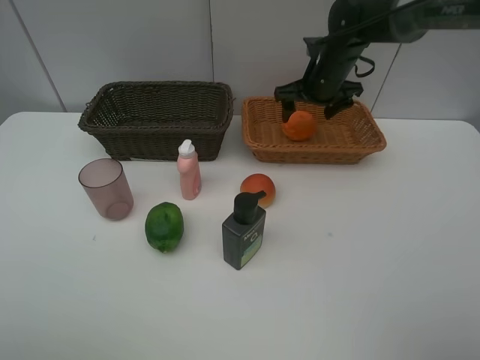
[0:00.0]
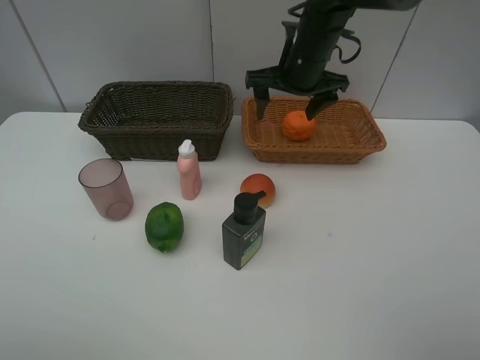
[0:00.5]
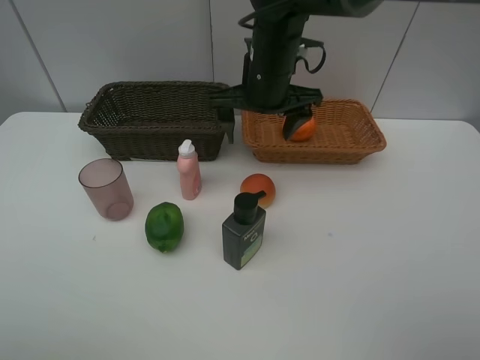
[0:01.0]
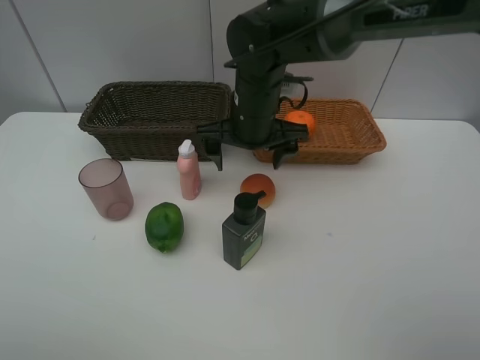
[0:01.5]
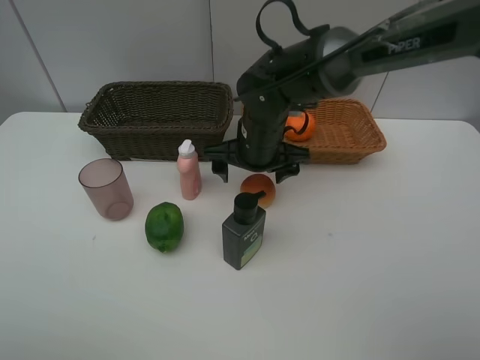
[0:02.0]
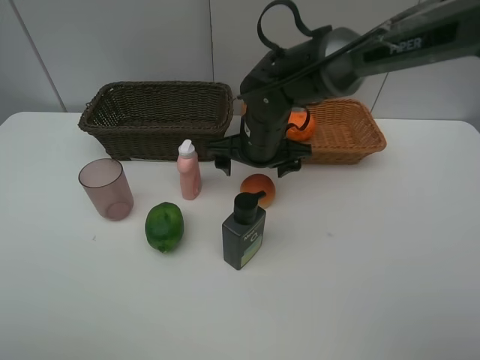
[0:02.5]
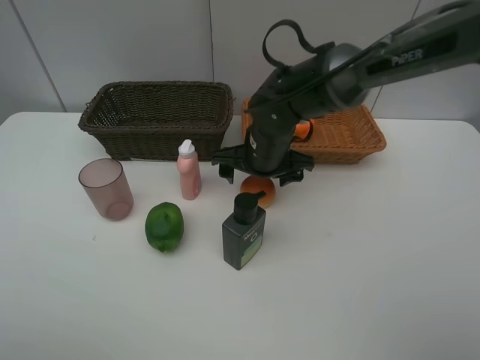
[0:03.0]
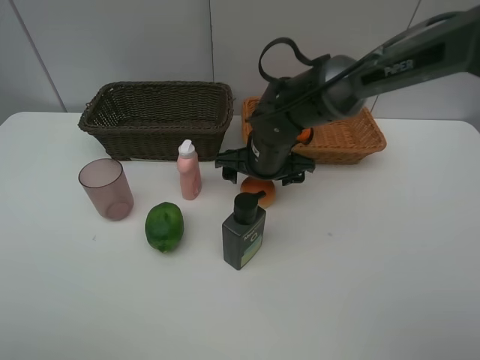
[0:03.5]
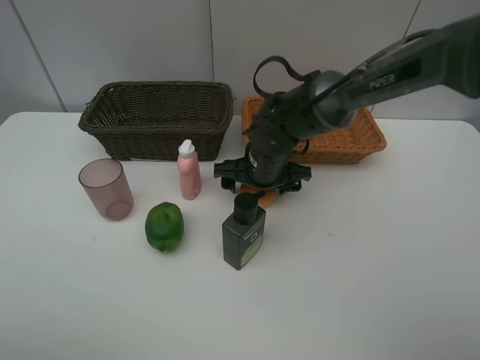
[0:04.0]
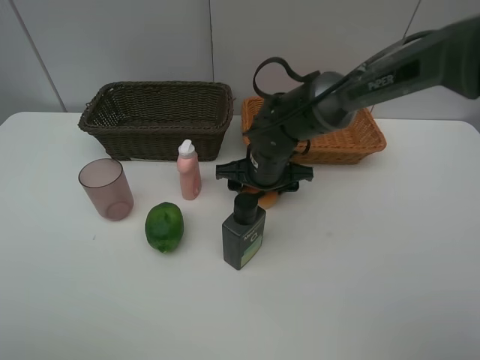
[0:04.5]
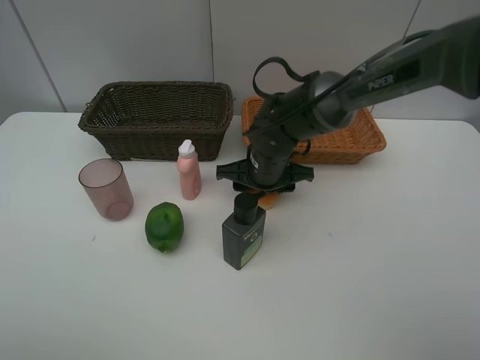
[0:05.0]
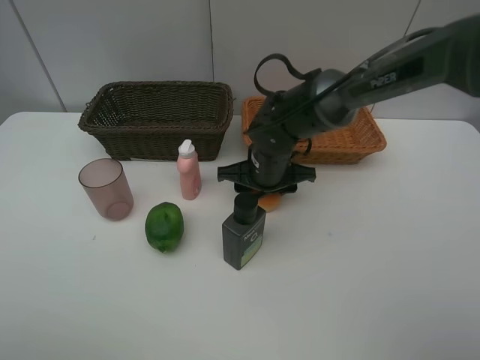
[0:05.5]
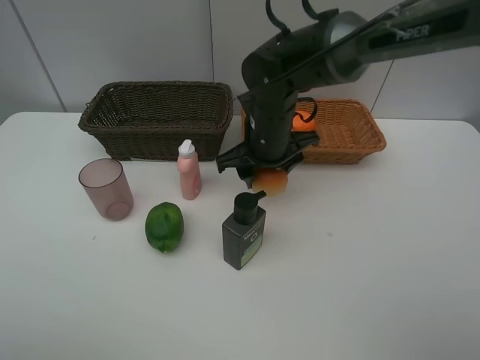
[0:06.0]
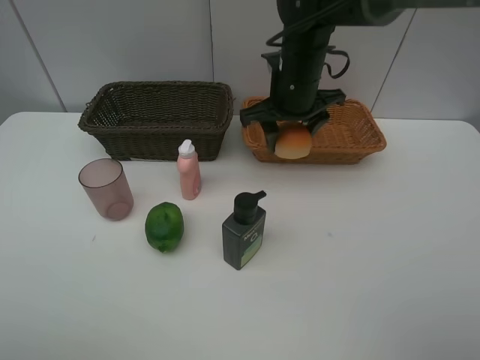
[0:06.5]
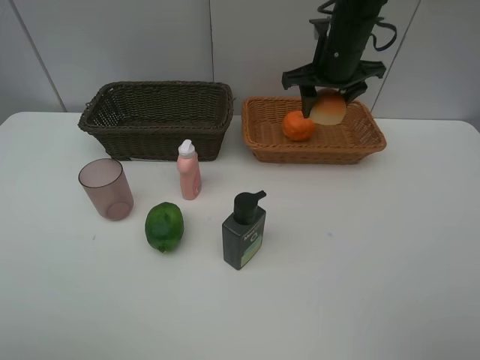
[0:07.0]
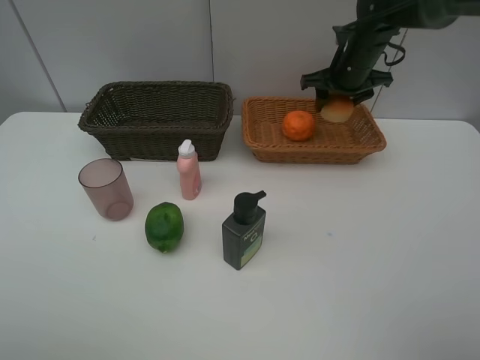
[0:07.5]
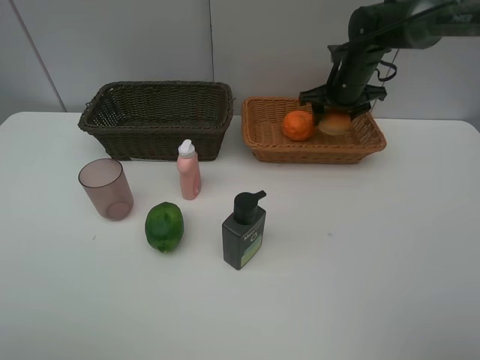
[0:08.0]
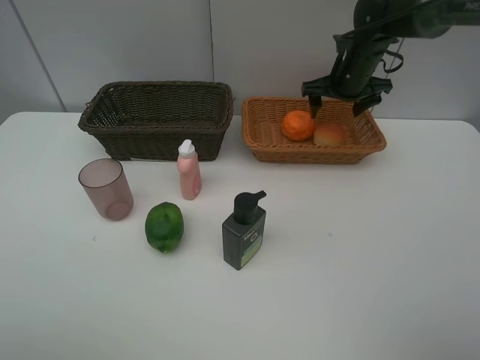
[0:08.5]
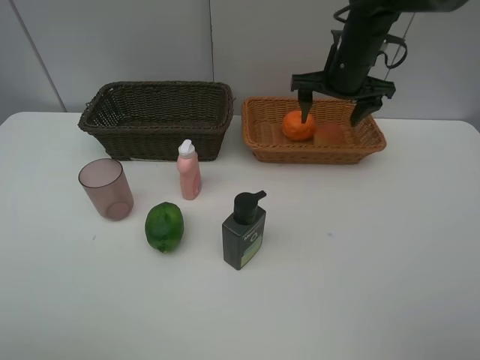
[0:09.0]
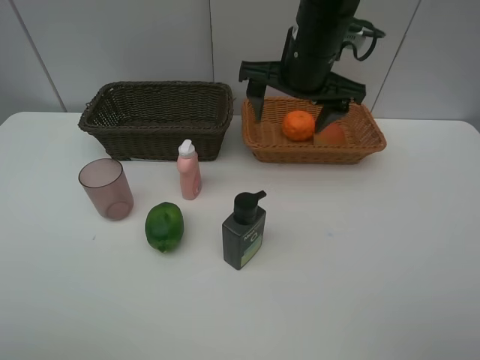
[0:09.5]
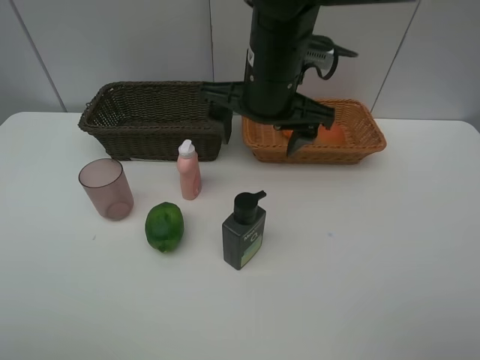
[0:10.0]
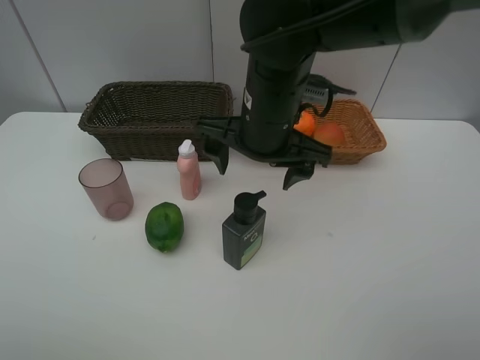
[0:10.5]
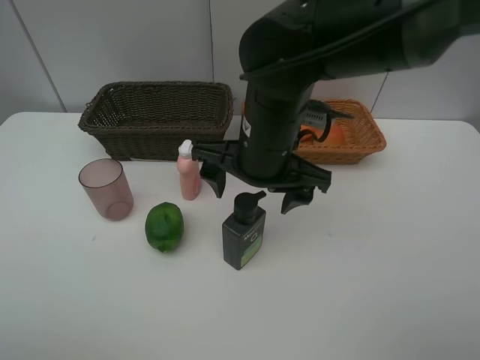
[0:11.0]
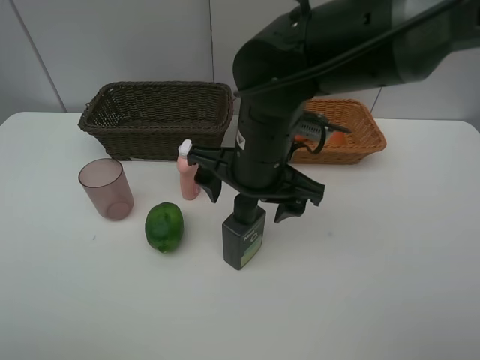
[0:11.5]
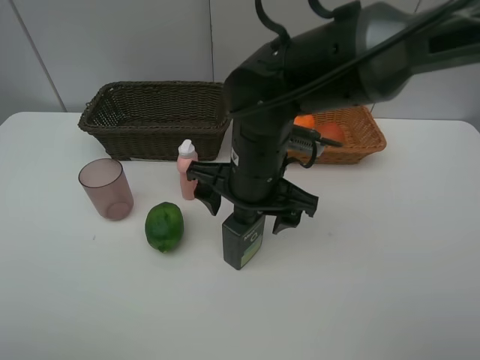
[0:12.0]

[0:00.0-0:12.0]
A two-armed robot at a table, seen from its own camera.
Task of the whole recording: place multiple objects separately in different baskets.
0:00.0 to 0:02.0: The right gripper is displaced backward and to the left by some 15 cm.
0:02.0 to 0:04.0: The right gripper is displaced downward by roughly 5 cm.
0:04.0 to 0:06.0: The right gripper heads upward, covering roughly 5 cm, and closes its fingers.
0:06.0 to 0:08.0: The right gripper shifts some 20 cm to the right and forward.
0:08.0 to 0:10.0: The right gripper travels backward, to the left and upward by approximately 25 cm.
0:10.0 to 0:12.0: The right gripper goes about 10 cm downward and backward.

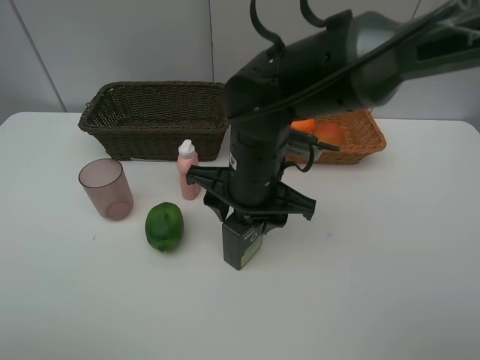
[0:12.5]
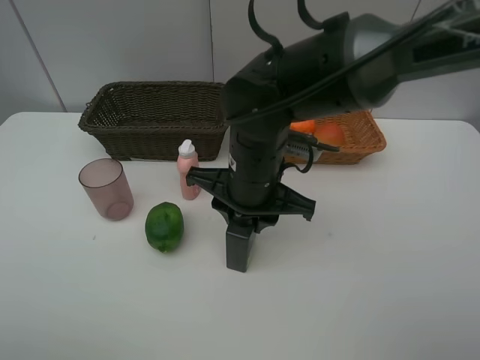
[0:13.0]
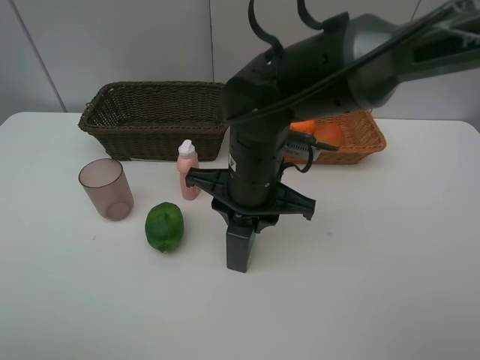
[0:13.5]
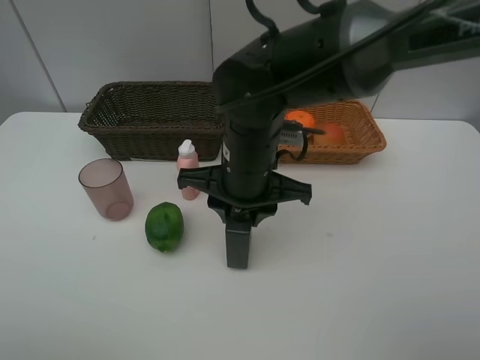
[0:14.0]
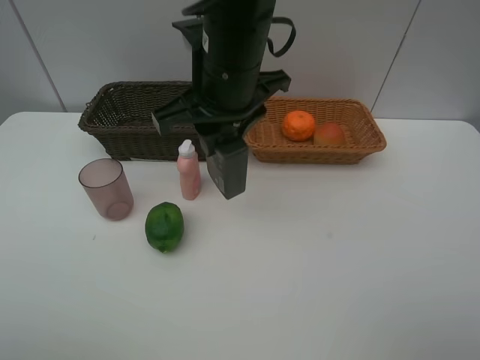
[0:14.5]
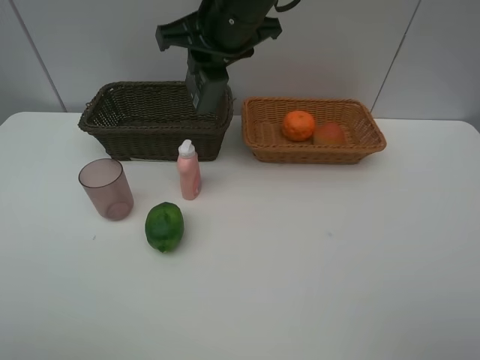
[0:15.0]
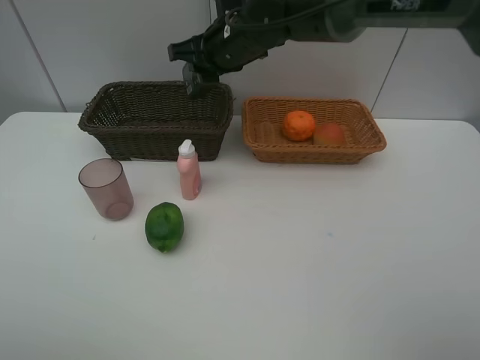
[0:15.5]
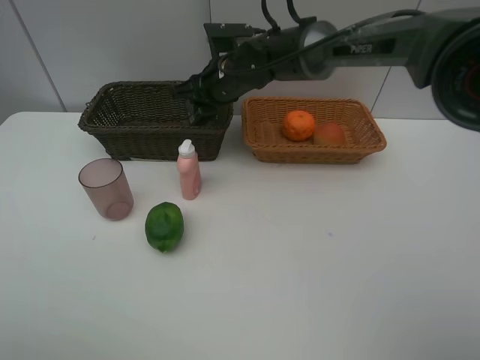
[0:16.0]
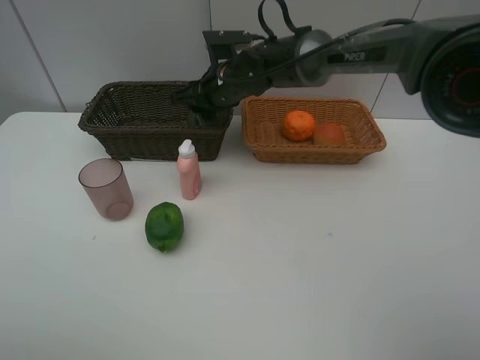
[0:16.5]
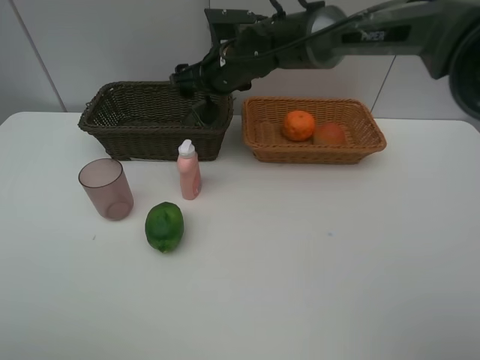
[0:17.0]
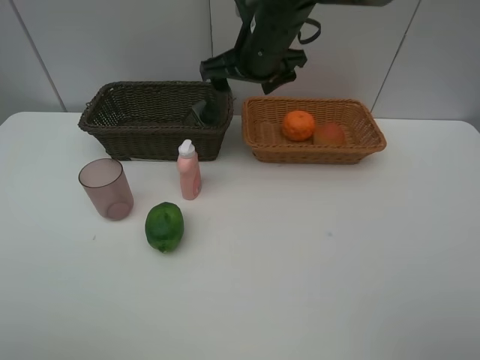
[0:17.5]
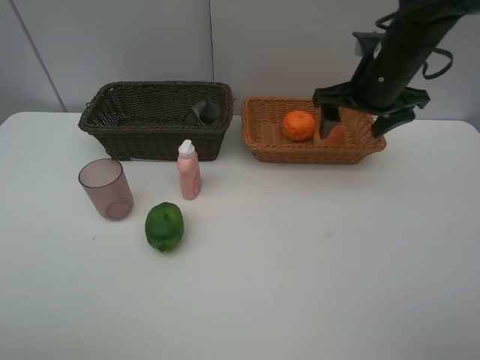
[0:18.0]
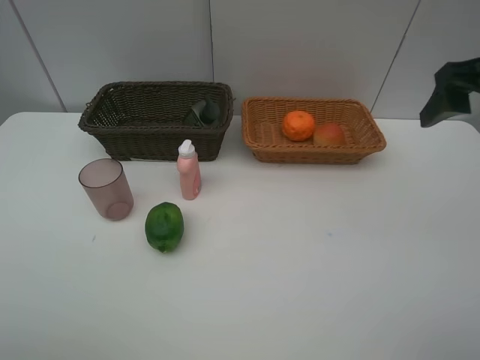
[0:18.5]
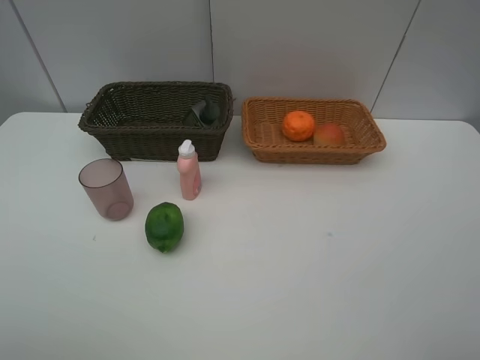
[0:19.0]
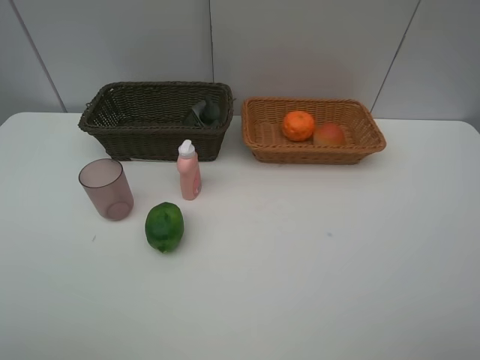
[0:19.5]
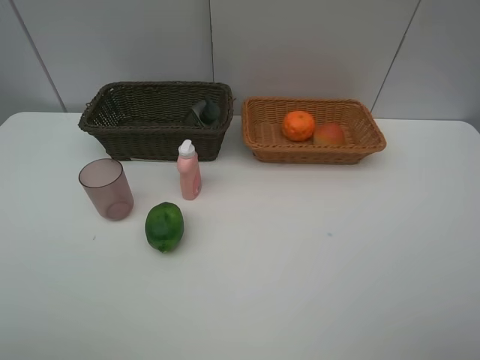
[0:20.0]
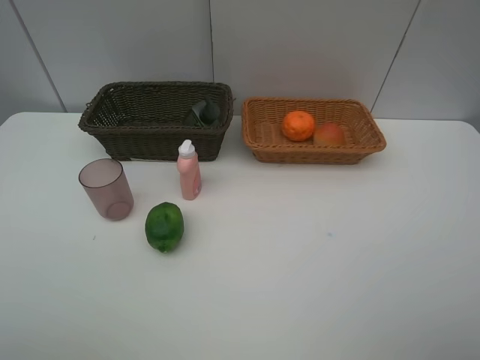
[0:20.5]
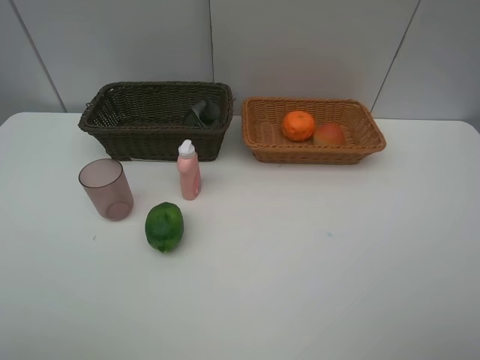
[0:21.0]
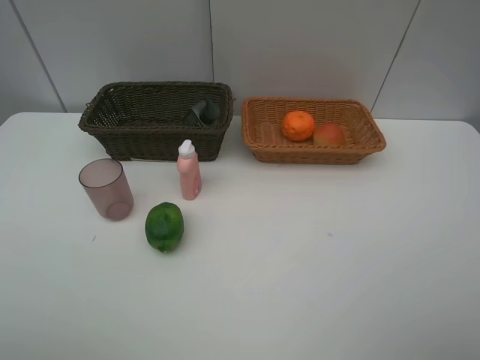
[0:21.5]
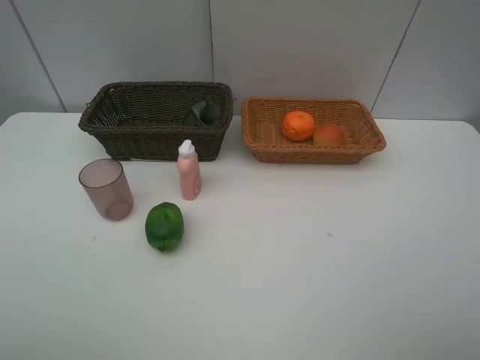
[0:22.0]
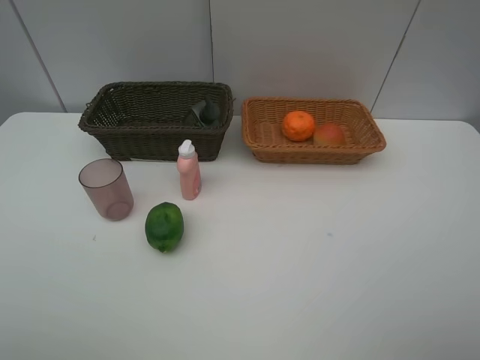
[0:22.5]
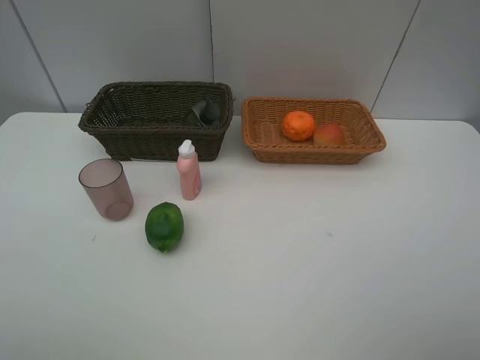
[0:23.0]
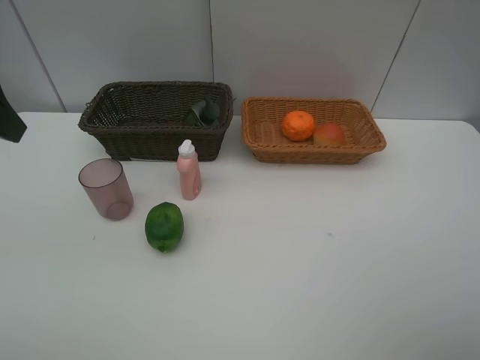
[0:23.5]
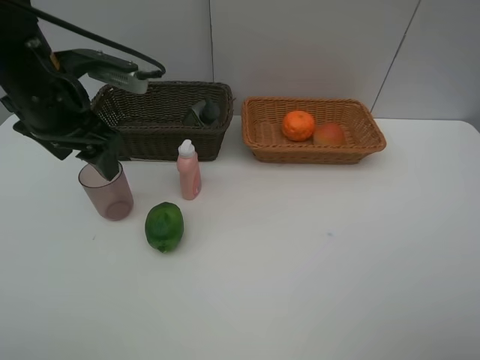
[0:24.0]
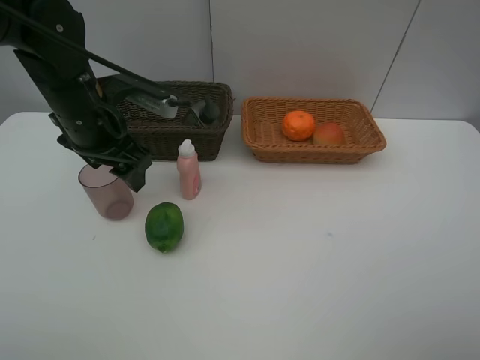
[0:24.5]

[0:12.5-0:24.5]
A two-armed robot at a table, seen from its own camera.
Task of the whole recording: place multiple objects separately in different baskets.
0:12.5 to 0:14.5: The right gripper travels upward by some 10 cm.
0:14.5 to 0:16.5: The right gripper travels forward and downward by approximately 20 cm.
0:16.5 to 0:18.5: The right gripper heads to the right, backward and upward, covering approximately 40 cm, and opens its fingers.
0:18.5 to 0:20.5: The right gripper travels backward by roughly 20 cm.
0:20.5 to 0:22.5: Both grippers stay about where they are.
0:22.5 to 0:24.5: The left gripper is displaced forward and to the right by approximately 35 cm.

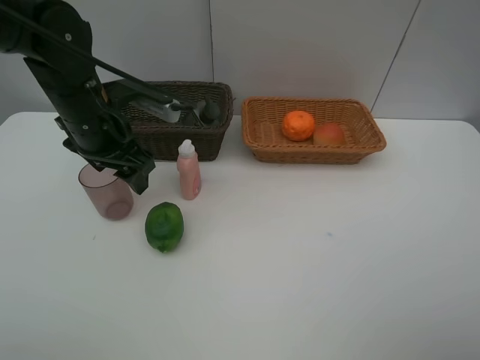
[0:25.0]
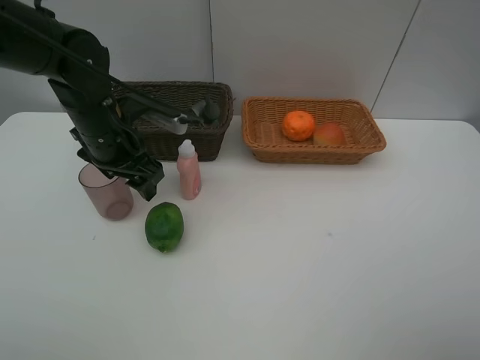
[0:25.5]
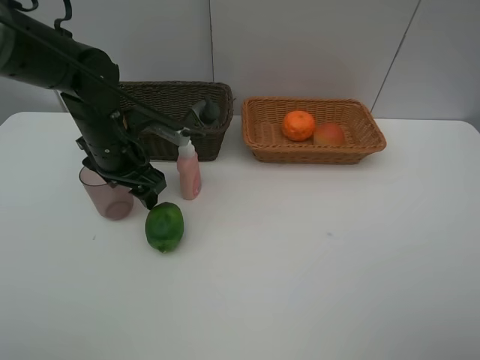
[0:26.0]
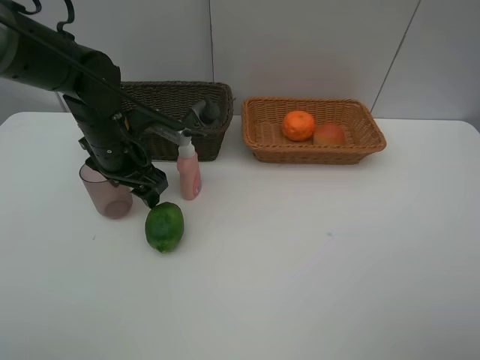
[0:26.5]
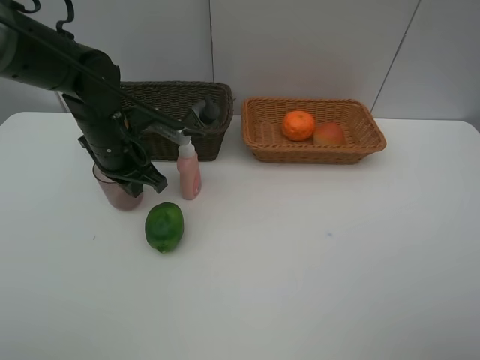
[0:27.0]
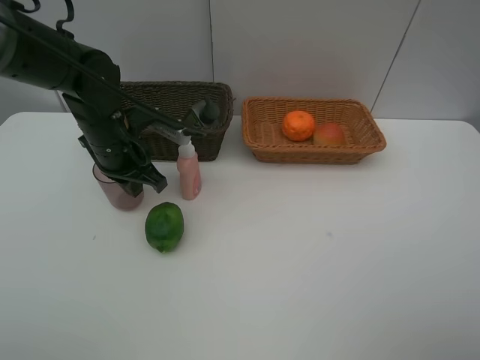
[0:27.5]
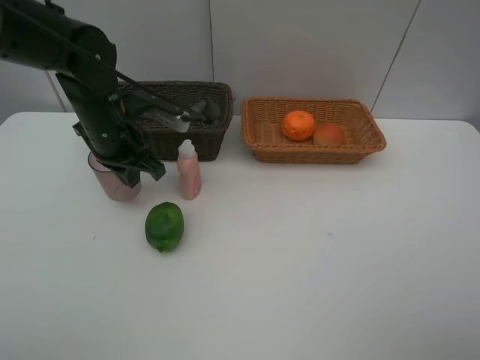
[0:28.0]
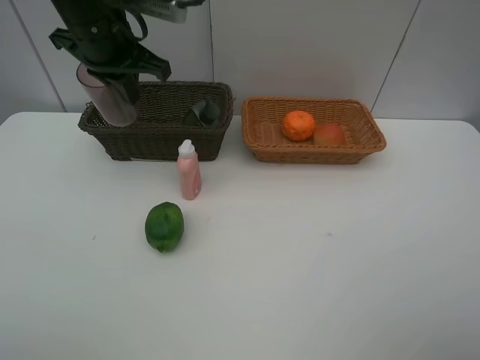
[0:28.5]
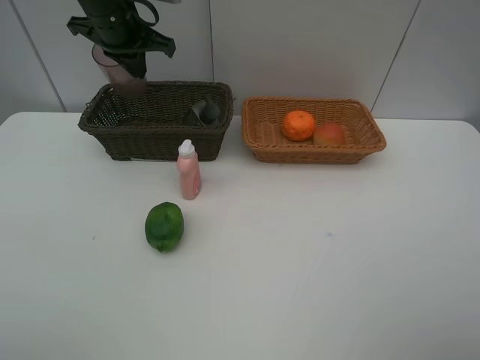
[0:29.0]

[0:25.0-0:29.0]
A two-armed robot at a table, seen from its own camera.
Task of the whole recording: place multiple objects separately in different baskets.
0:25.0 to 0:27.0: The left gripper changes place by some 5 cm, and closes up.
0:27.0 to 0:29.0: The left gripper shifts roughly 15 cm upward and forward.
